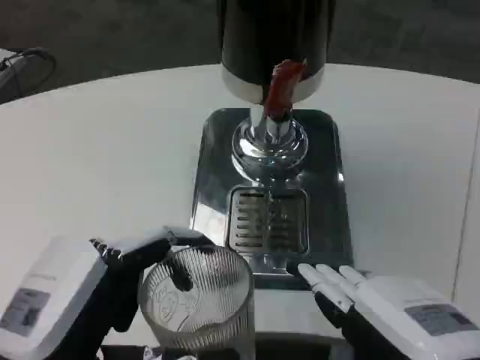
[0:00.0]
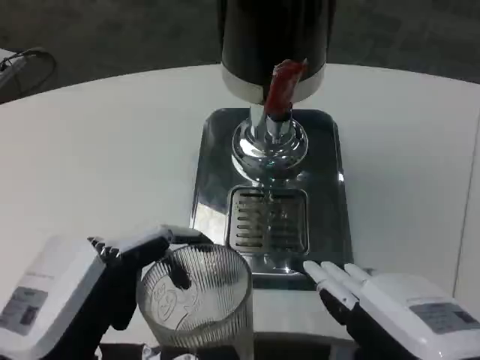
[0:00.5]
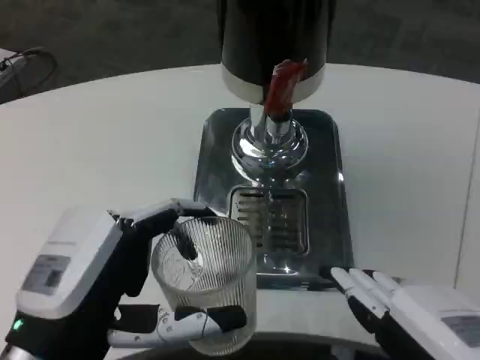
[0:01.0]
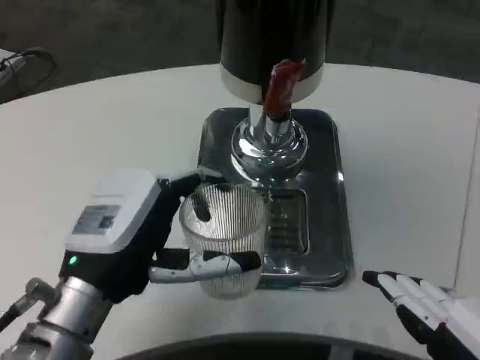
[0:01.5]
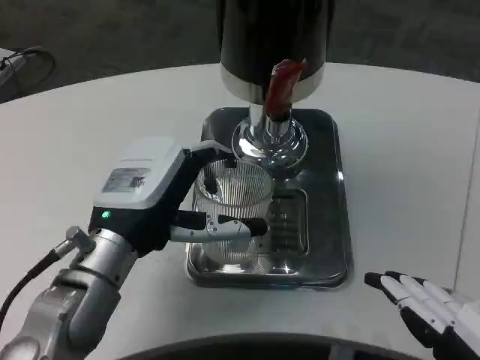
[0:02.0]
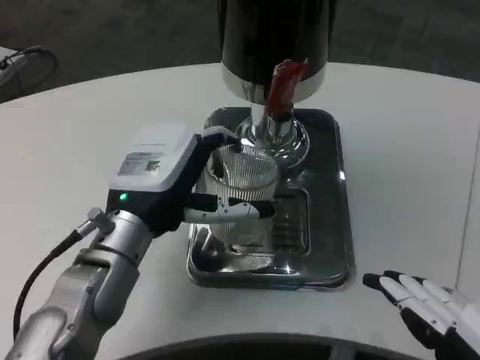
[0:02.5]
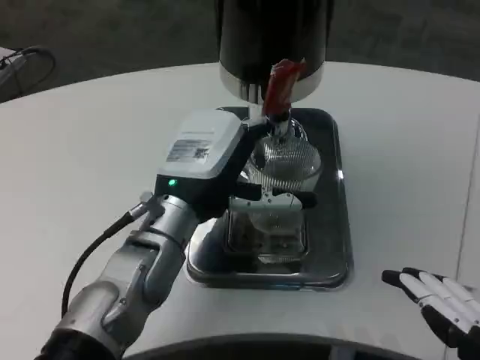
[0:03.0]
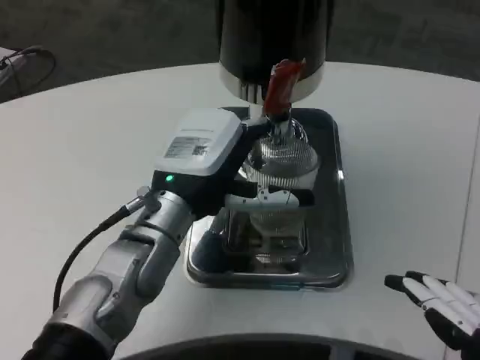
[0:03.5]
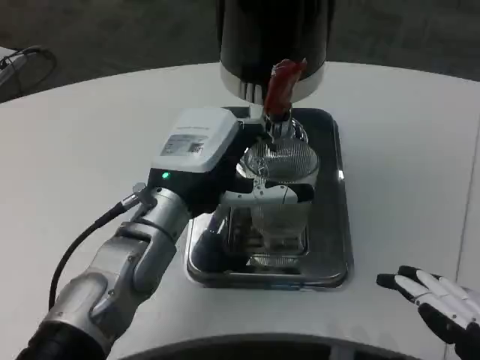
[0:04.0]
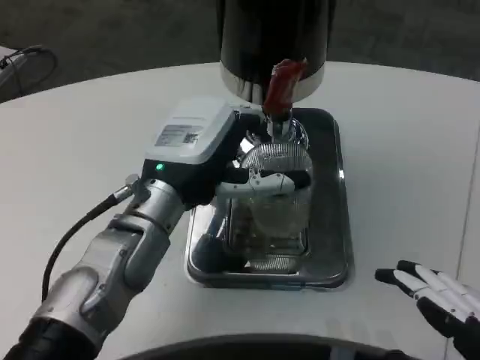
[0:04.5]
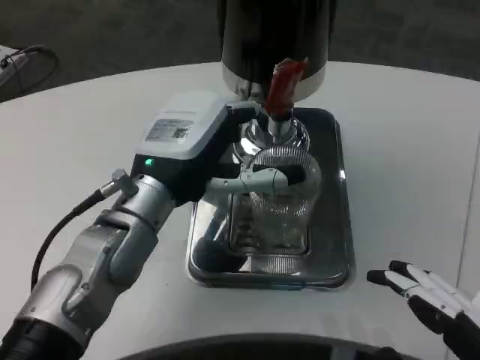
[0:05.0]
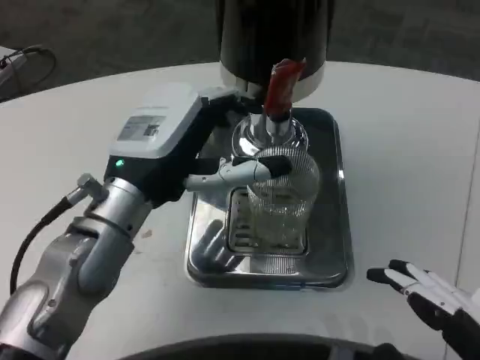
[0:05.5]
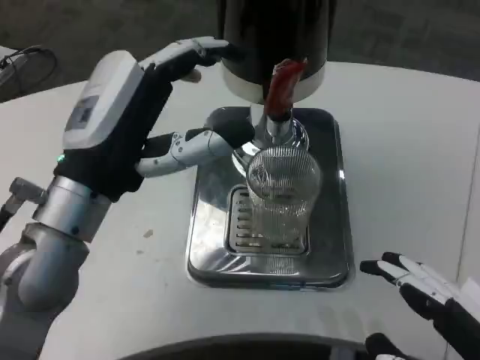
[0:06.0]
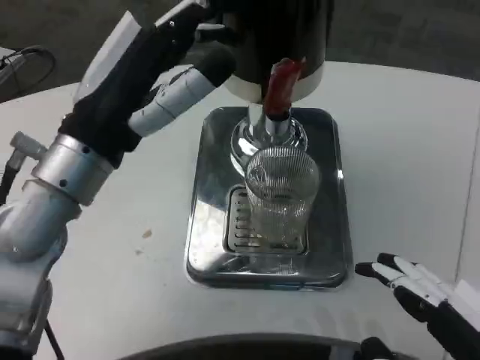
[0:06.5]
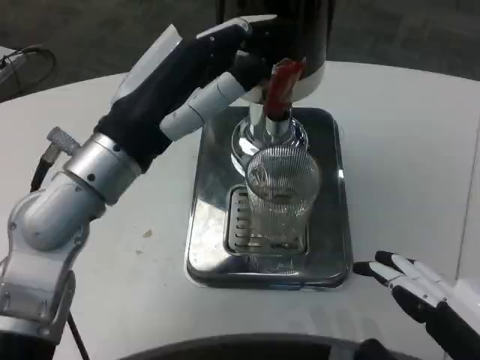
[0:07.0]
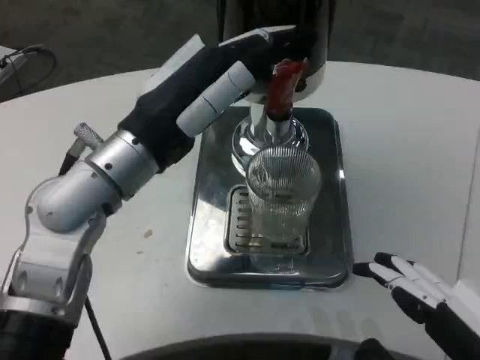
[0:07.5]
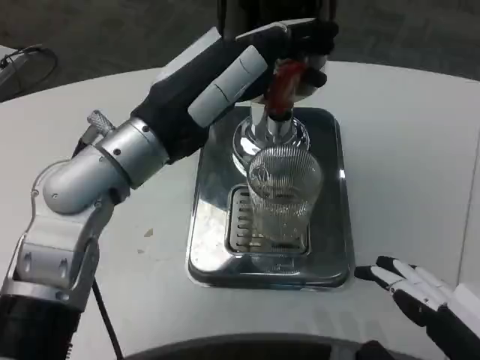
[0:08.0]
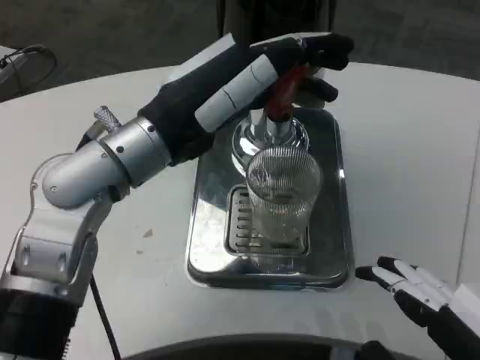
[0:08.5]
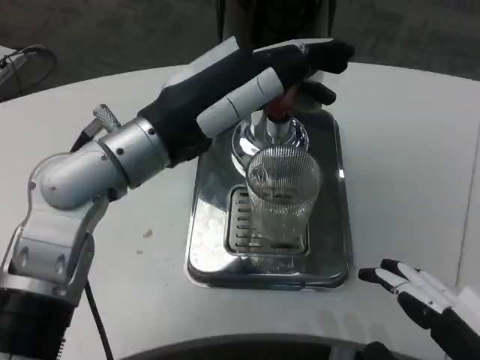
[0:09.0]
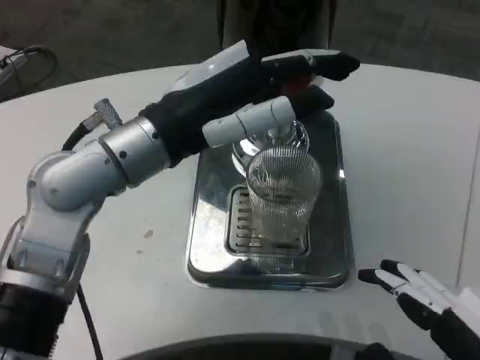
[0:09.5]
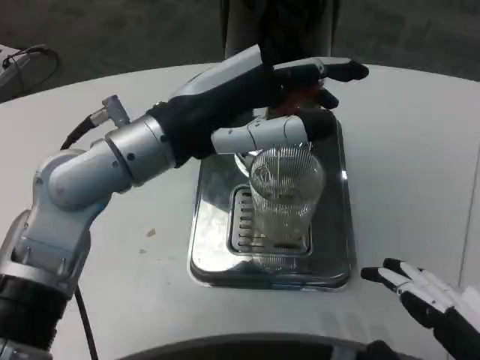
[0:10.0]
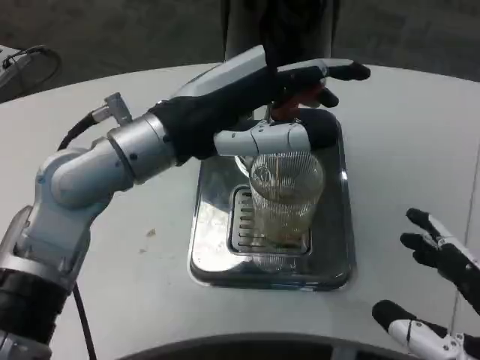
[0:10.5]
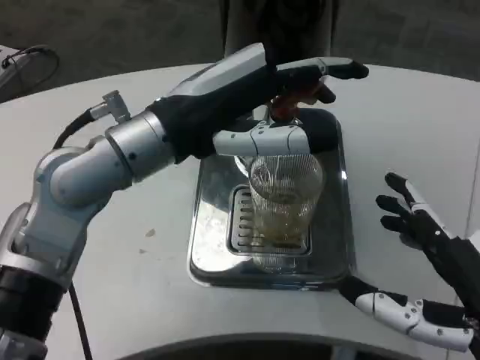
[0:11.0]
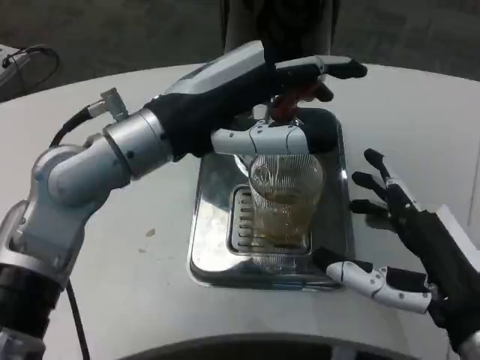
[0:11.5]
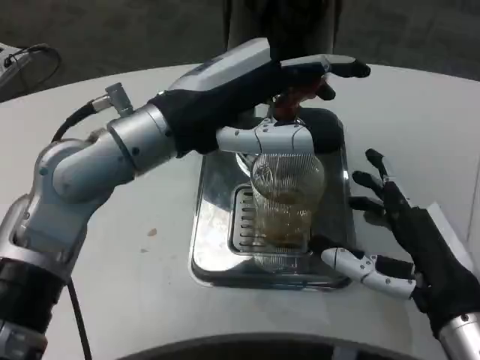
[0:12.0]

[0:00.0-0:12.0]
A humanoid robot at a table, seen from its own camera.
Task of the whole recording: Grasp the cup under the faucet to collect the drink, then remove the cup.
0:00.0 to 0:02.0: The left hand moves forward, some 15 cm, while the right hand moves about 5 cm.
0:02.0 to 0:04.0: The left hand ends up about 5 cm from where it was.
0:04.0 to 0:06.0: The left hand is displaced to the left and backward by some 10 cm.
0:06.0 to 0:08.0: The left hand changes place by approximately 5 cm.
0:10.0 to 0:12.0: The right hand travels forward and downward by about 15 cm.

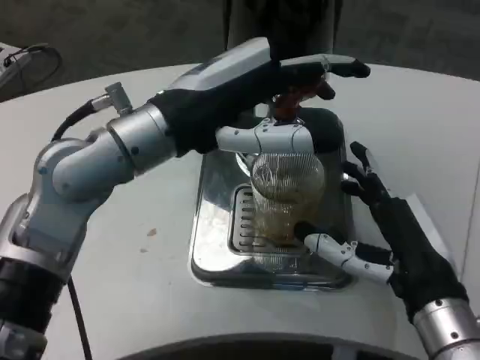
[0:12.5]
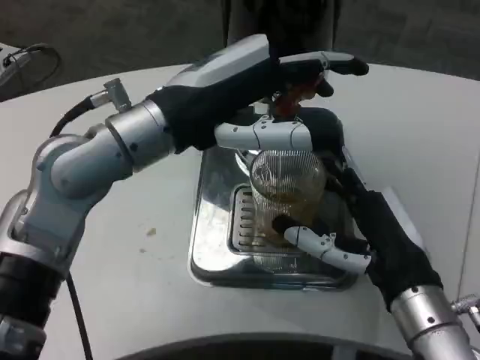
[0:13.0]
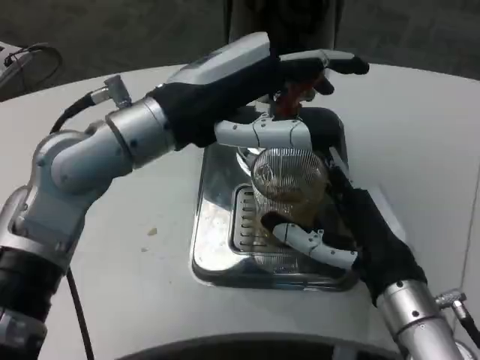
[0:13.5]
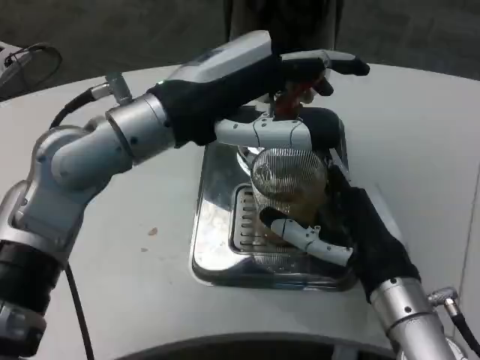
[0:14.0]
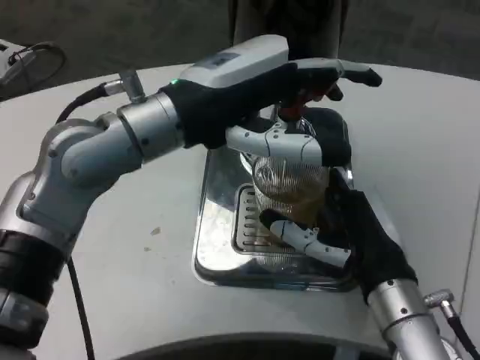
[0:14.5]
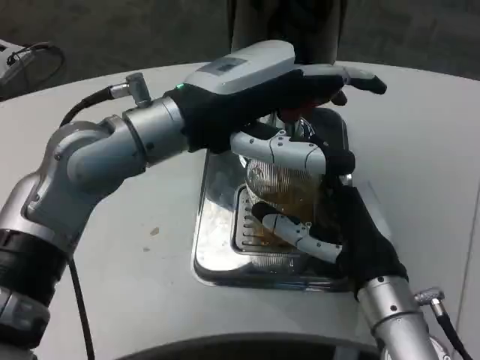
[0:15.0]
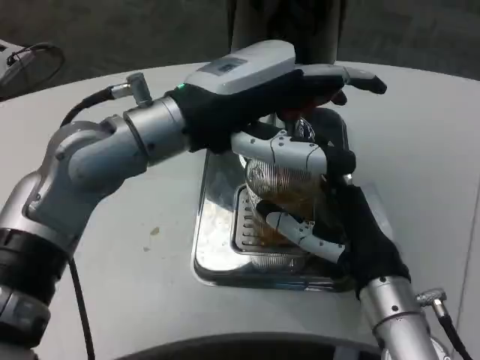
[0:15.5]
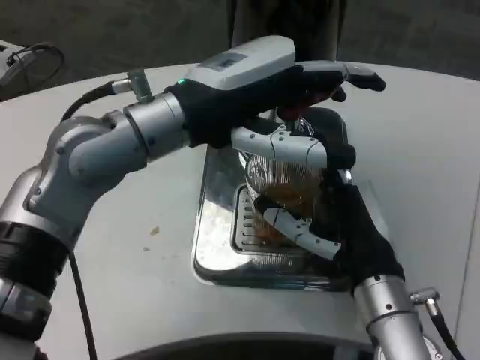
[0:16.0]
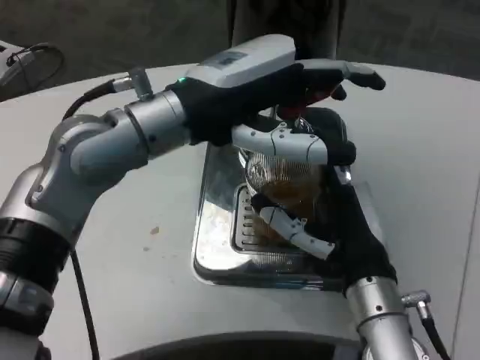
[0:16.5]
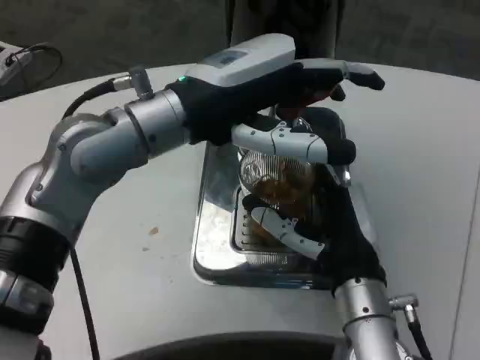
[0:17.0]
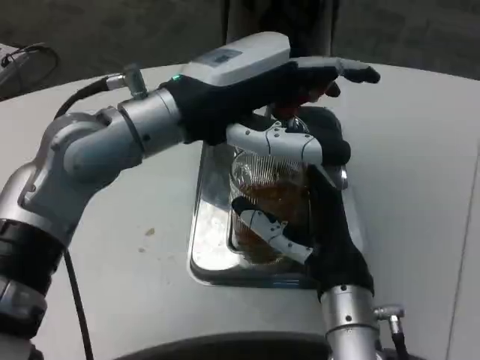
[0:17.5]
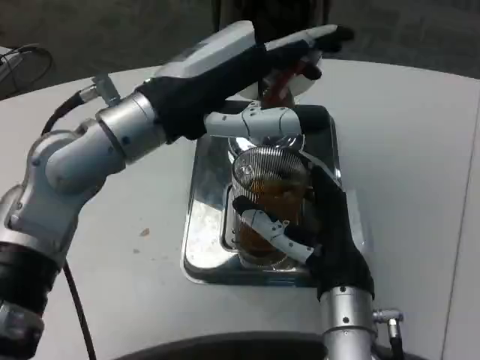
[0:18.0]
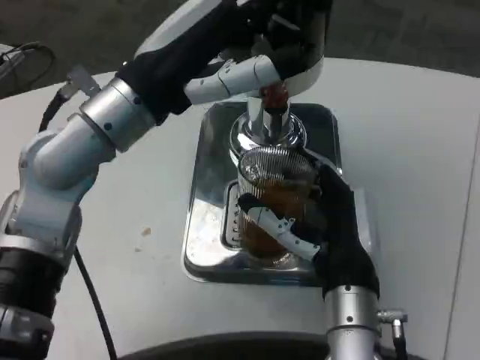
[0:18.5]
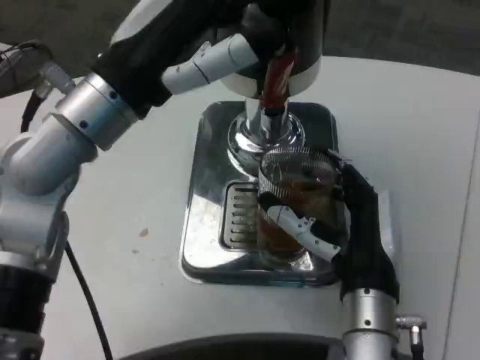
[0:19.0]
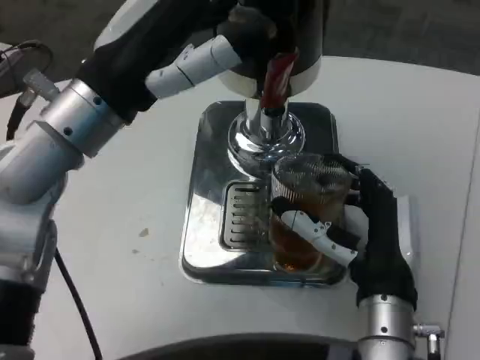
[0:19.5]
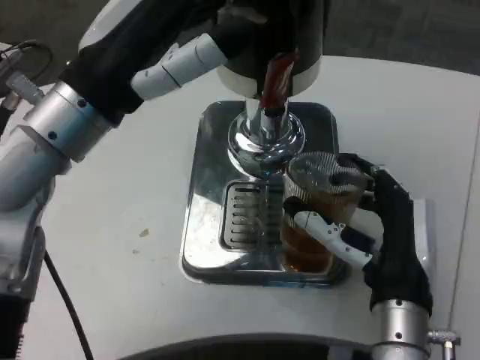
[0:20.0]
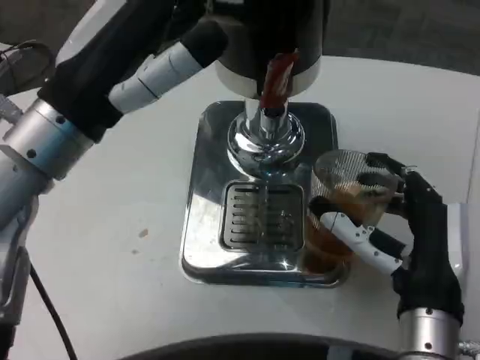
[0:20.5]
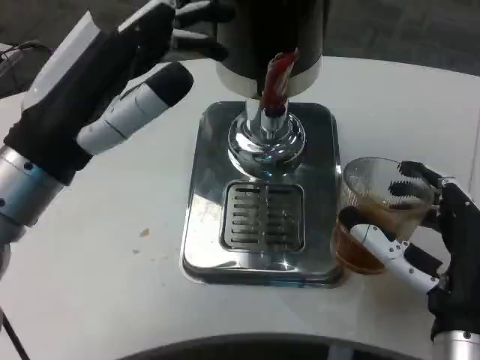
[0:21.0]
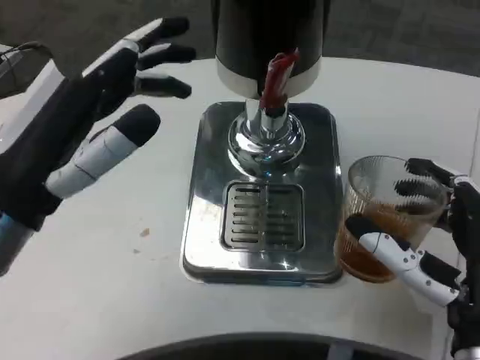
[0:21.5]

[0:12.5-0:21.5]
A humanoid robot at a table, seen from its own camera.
Task of the whole recording: Grasp the cup under the faucet to collect the drink, then remove the cup.
0:17.0 to 0:19.5: The left hand ends up about 5 cm from where it was.
0:19.5 to 0:21.5: The left hand travels backward, downward and to the left by some 10 cm. The right hand goes roughly 10 cm backward and to the right.

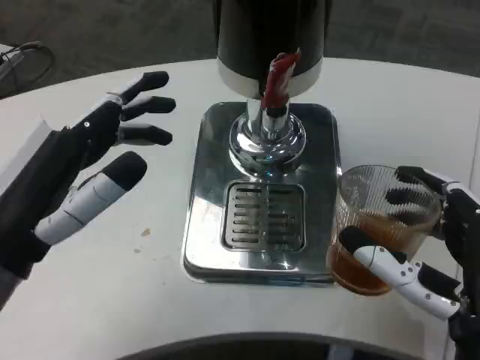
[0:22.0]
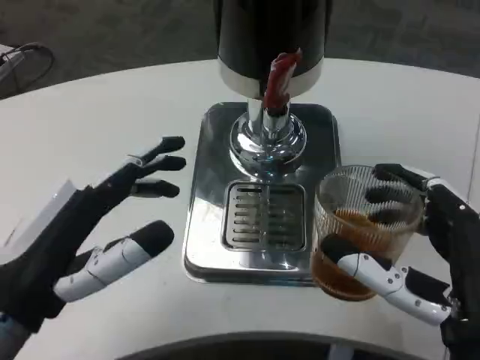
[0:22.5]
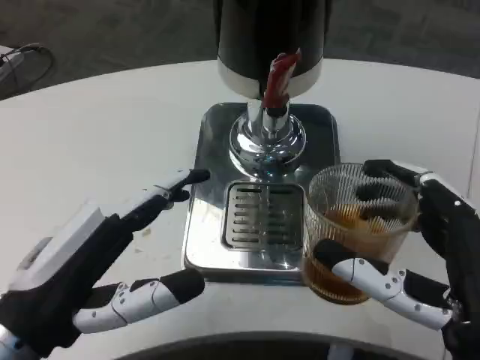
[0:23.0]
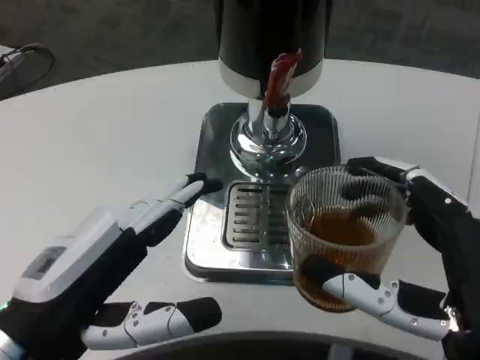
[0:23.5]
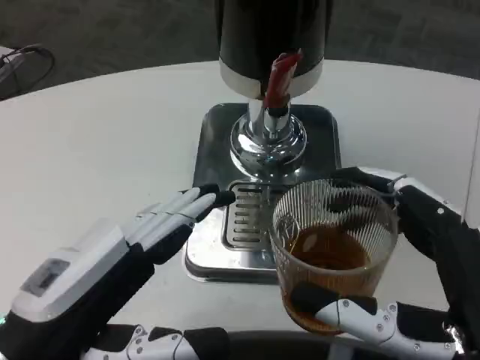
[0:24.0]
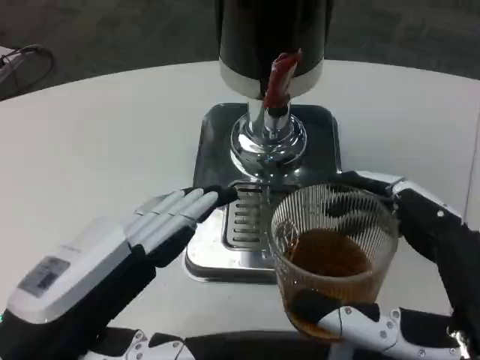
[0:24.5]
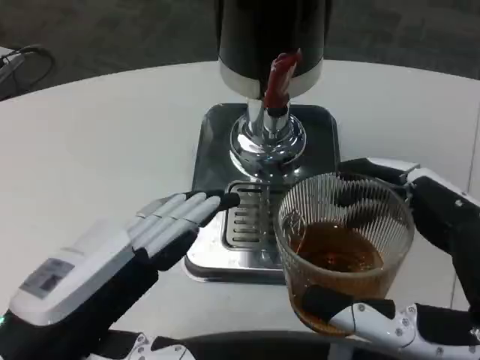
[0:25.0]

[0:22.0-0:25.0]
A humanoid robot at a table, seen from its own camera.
Task of the whole recording: Grasp the cup under the faucet to collect the drink, then remove the cup.
0:22.0 to 0:23.5: The left hand changes place by some 5 cm.

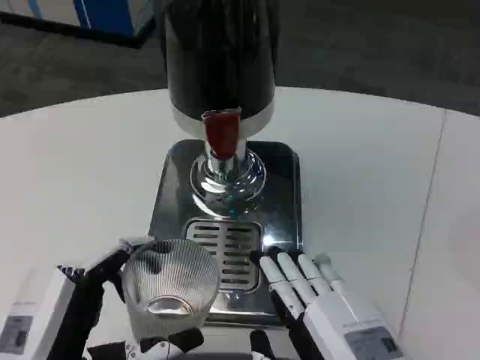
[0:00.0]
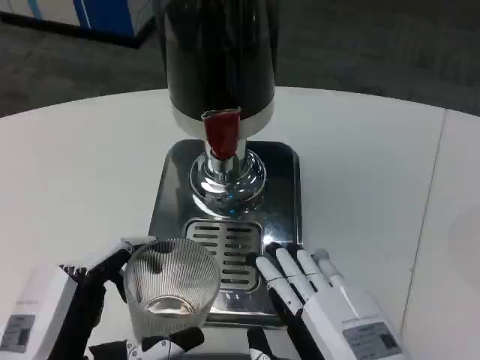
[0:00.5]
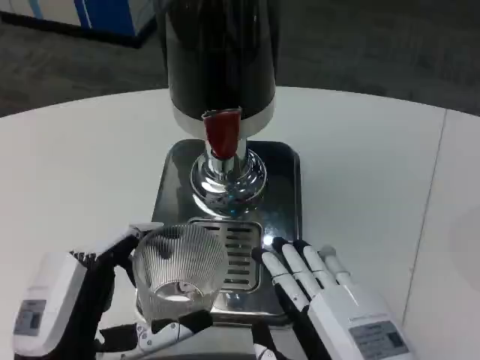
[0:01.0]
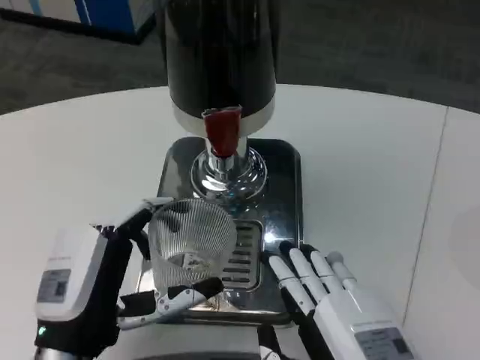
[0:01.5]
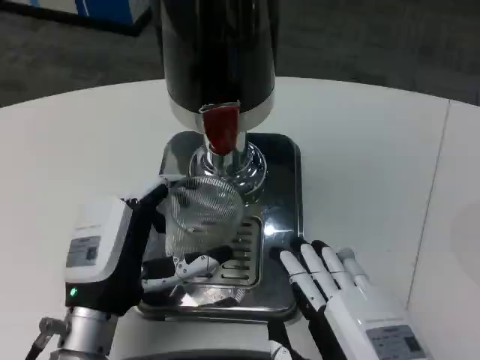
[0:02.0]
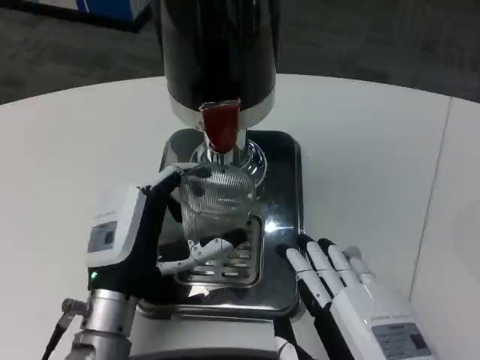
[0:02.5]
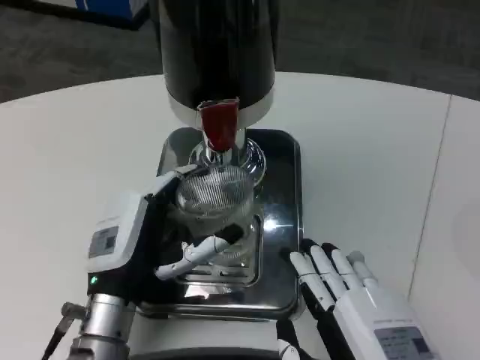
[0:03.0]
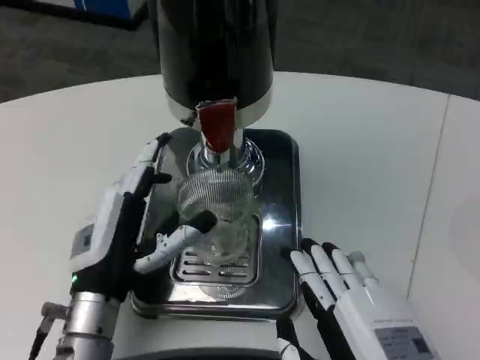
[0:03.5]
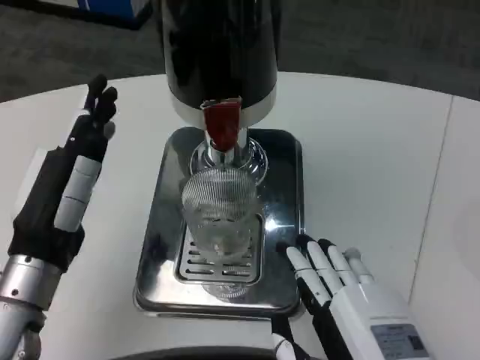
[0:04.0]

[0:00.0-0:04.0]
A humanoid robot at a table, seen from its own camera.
Task of the whole recording: Grasp the cup under the faucet to collect the drink, then remove the cup.
0:00.0 to 0:02.0: The left hand heads forward, covering roughly 10 cm.
0:02.0 to 0:04.0: The left hand heads upward and to the left, covering some 10 cm.
